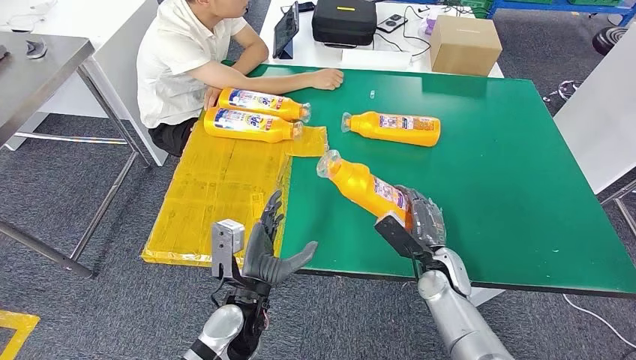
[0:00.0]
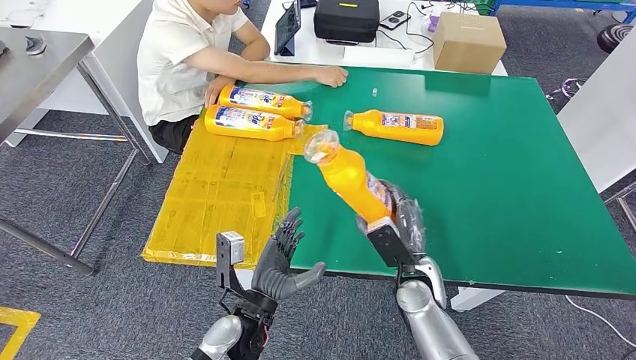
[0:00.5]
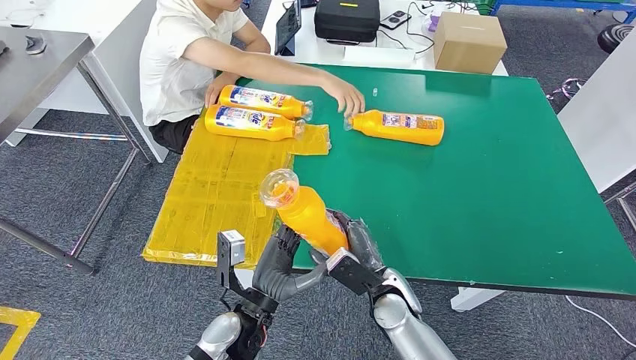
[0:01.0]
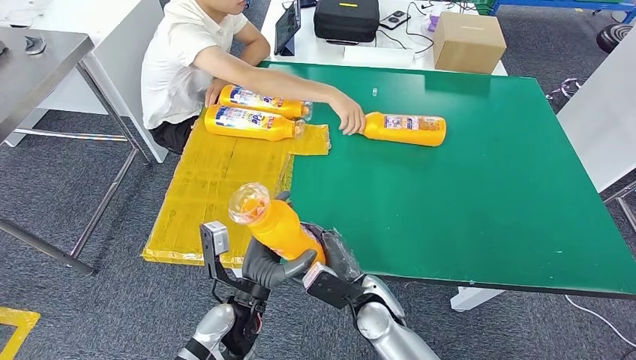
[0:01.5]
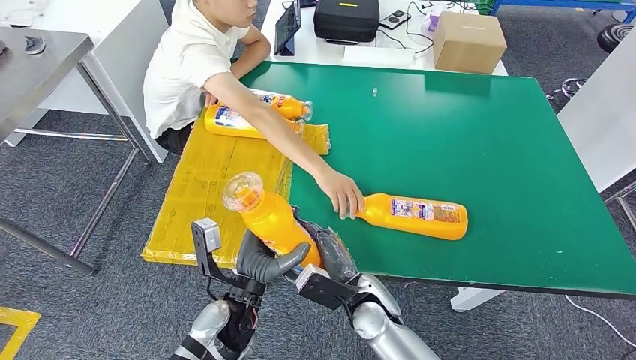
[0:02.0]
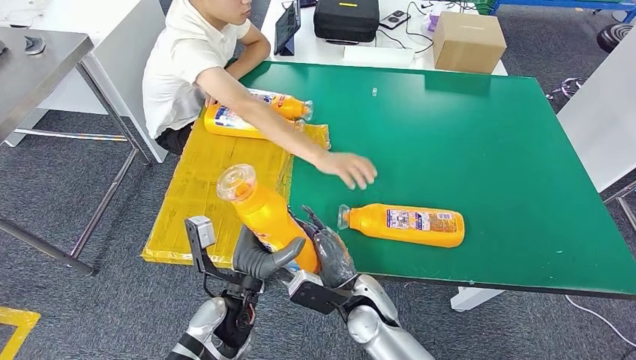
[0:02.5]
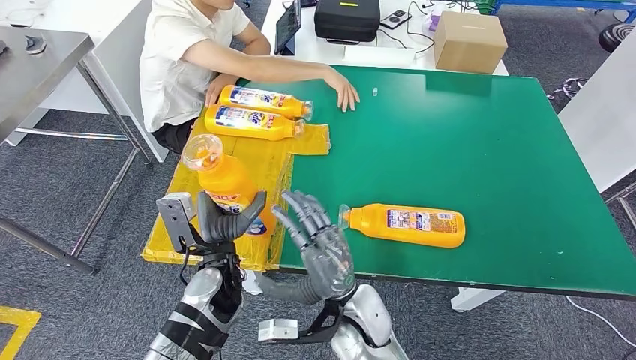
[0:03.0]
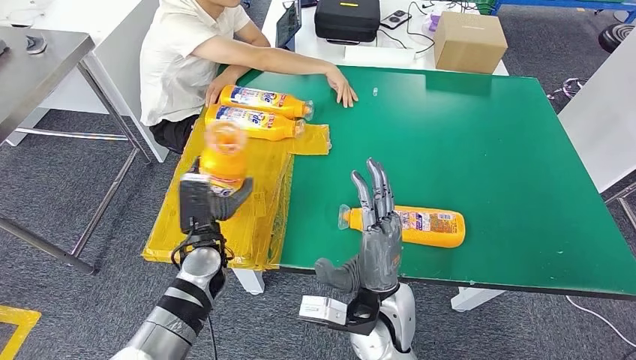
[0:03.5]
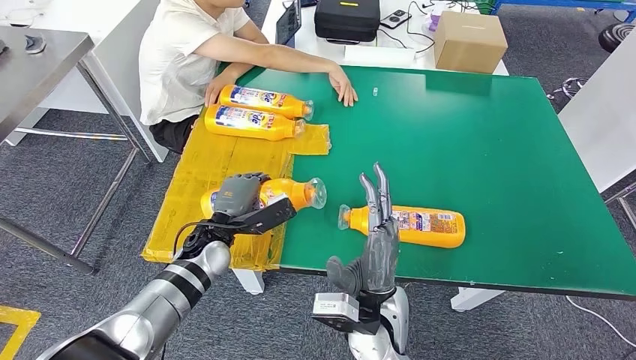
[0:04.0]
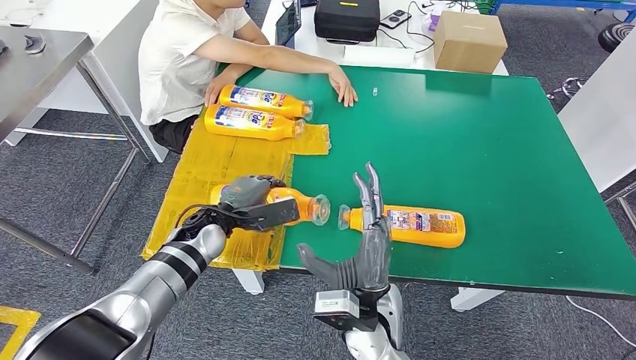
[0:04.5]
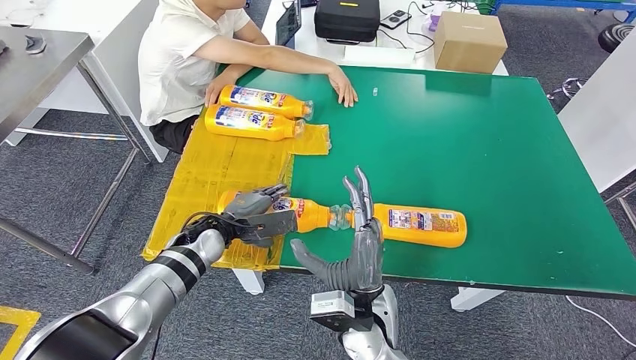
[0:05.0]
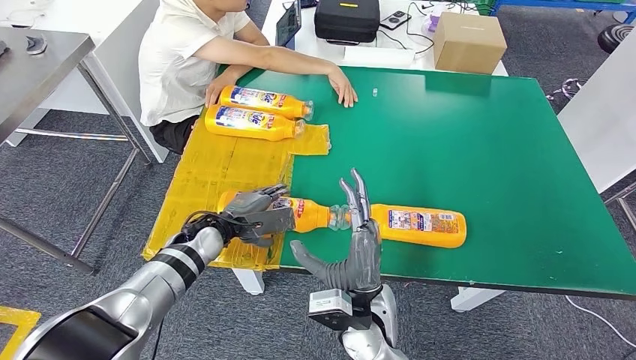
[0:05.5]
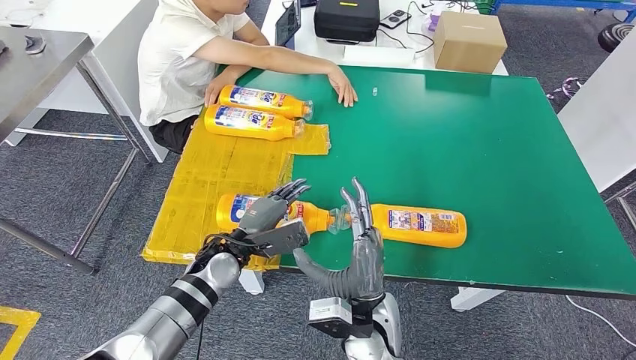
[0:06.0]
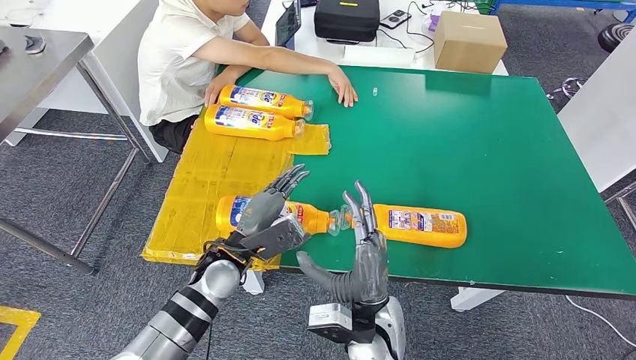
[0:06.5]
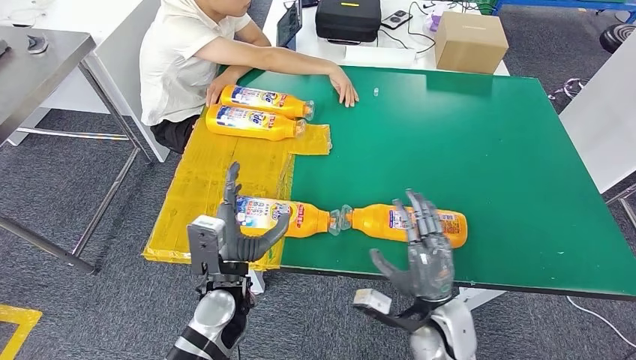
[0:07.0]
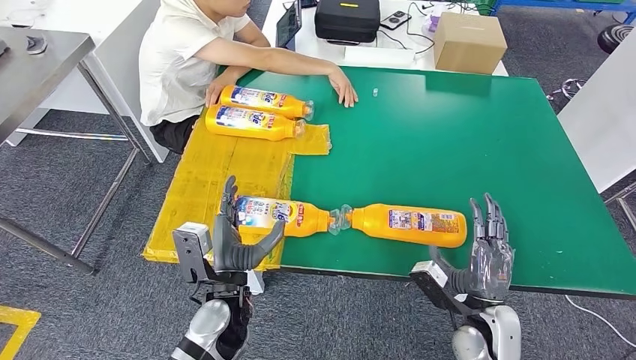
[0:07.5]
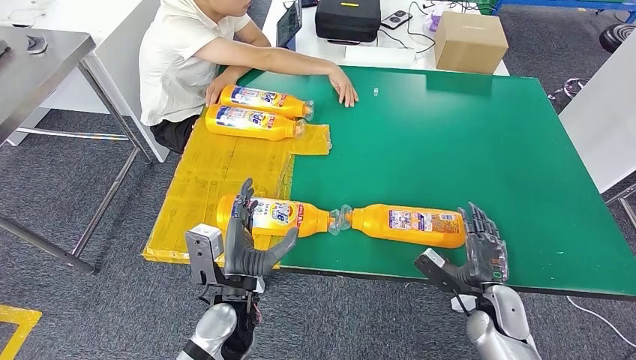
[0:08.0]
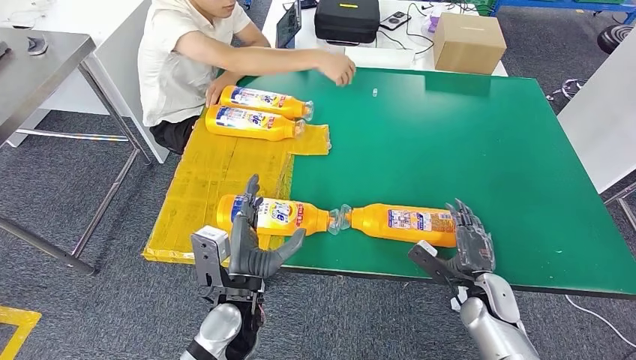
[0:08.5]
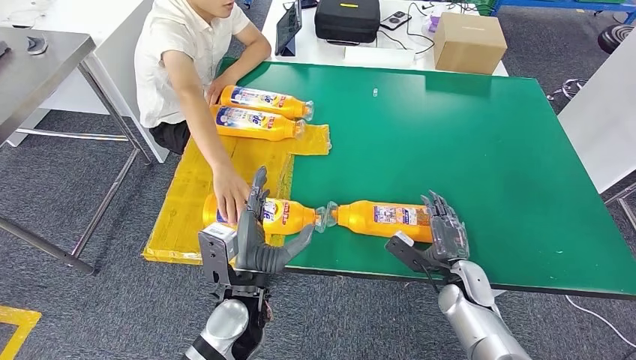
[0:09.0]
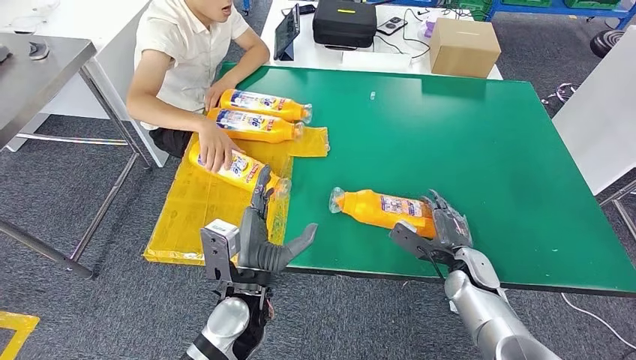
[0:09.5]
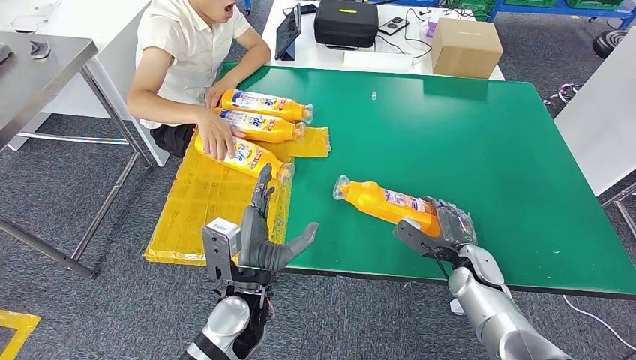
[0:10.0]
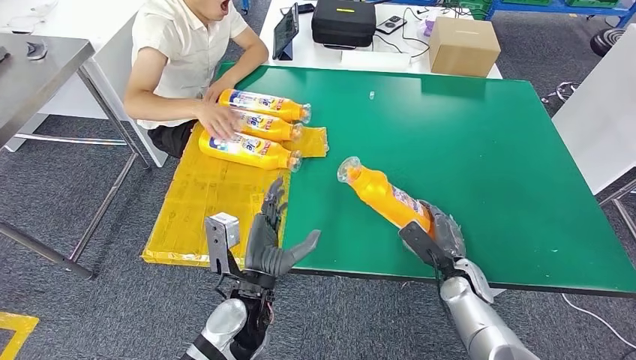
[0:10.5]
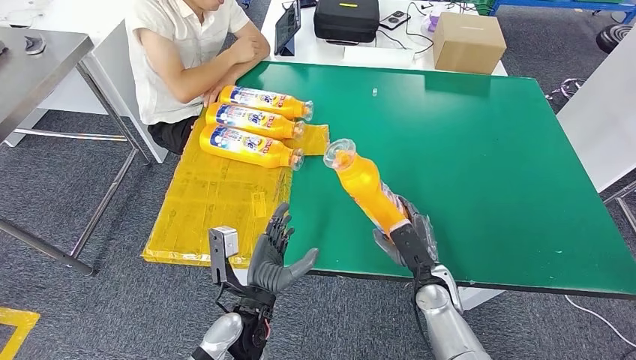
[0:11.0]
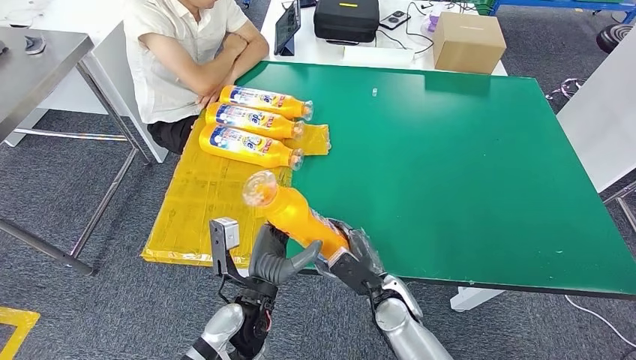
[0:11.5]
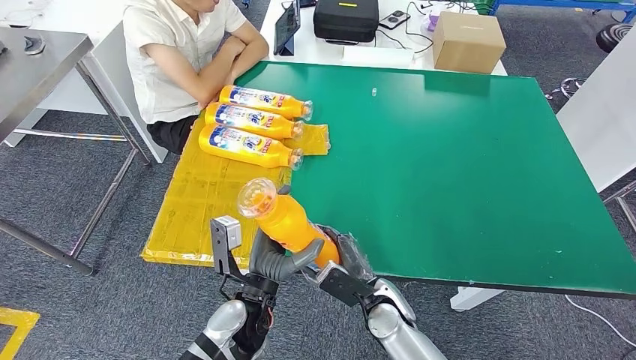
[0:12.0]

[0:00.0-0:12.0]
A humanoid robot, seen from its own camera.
Step, 0:00.5 to 0:05.5: Flip the fast-moving consumer goods bottle to the front side.
Step, 0:06.0 to 0:11.0: Pick up the fast-moving consumer goods bottle from the table.
0:06.0 to 0:08.0: The left hand heads backward, covering some 10 cm. The right hand moves to the right, approximately 25 cm.

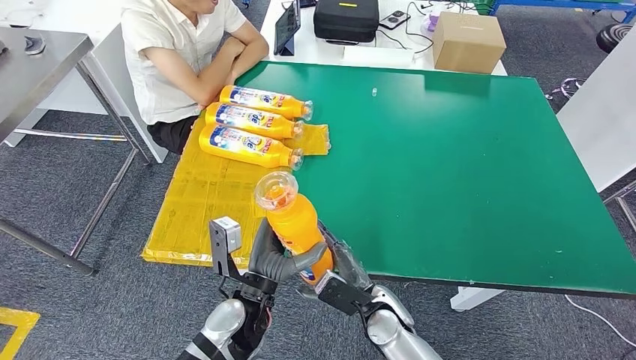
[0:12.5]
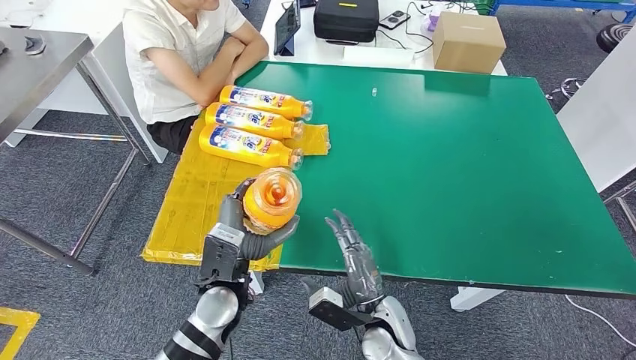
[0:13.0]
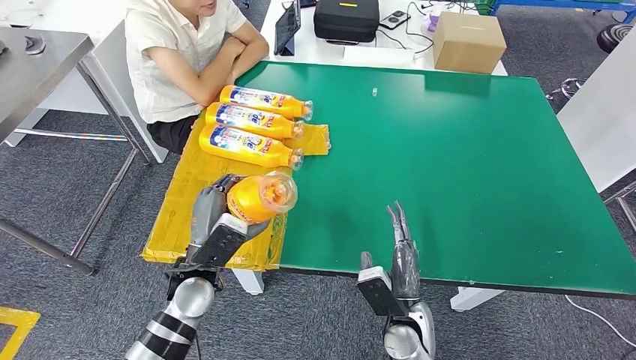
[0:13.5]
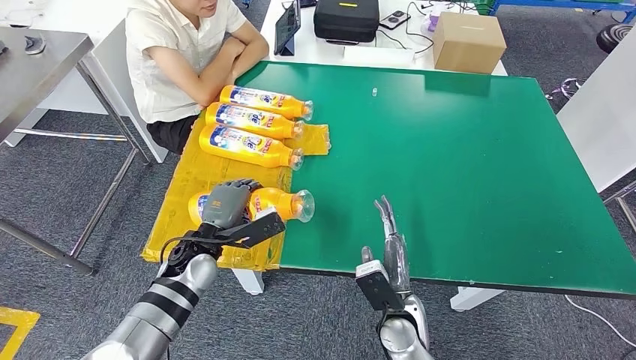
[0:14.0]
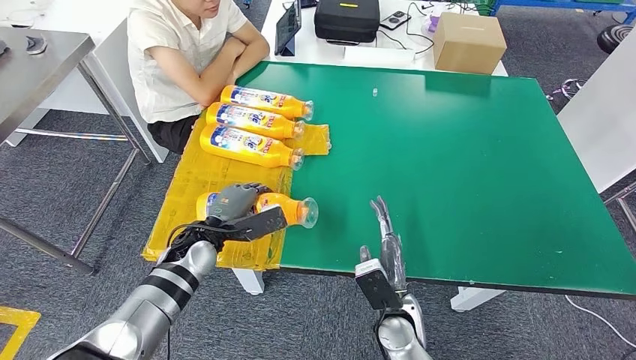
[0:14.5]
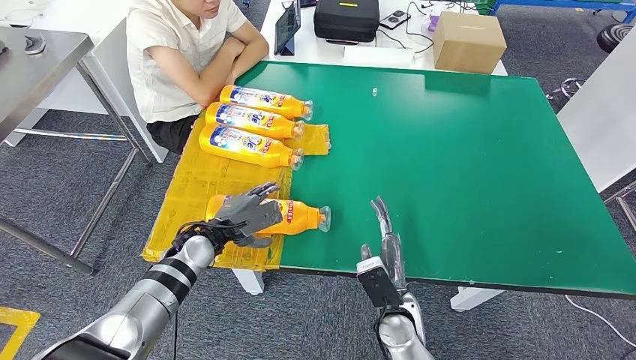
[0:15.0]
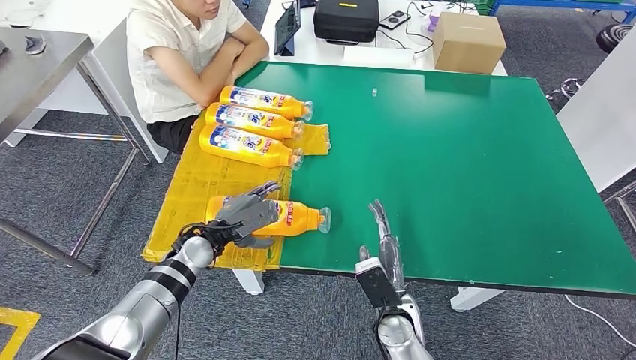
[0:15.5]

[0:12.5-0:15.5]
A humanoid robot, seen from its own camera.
Step, 0:12.5 to 0:15.5: Flip the fast-moving consumer goods bottle to the front side.
0:12.5 to 0:14.0: The left hand heads to the left and forward, covering approximately 15 cm.

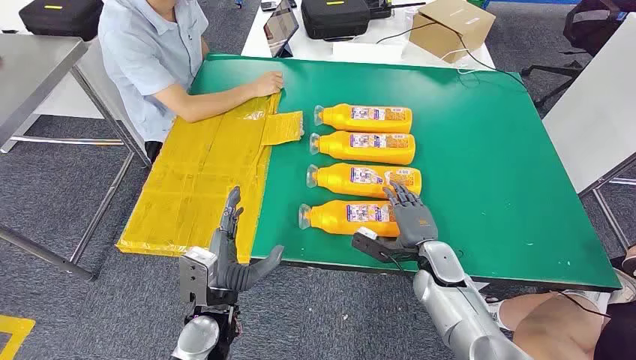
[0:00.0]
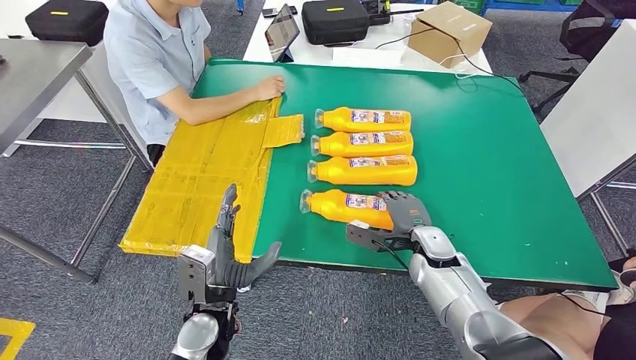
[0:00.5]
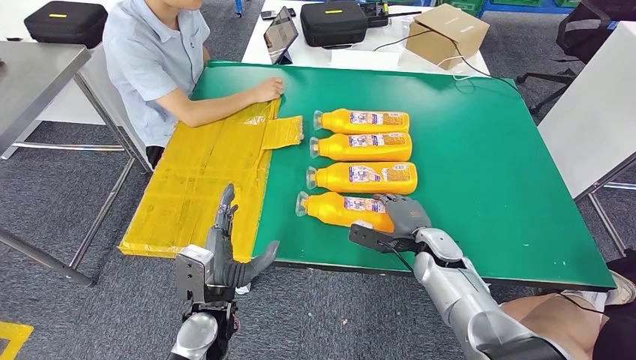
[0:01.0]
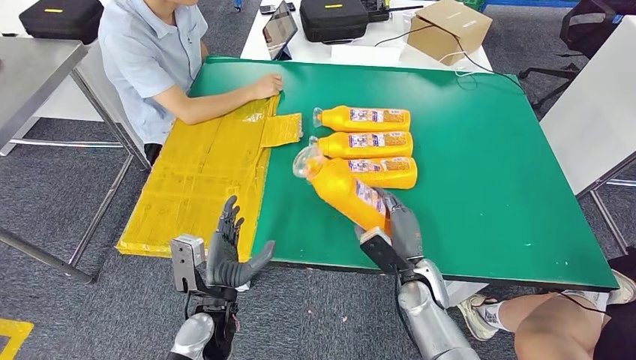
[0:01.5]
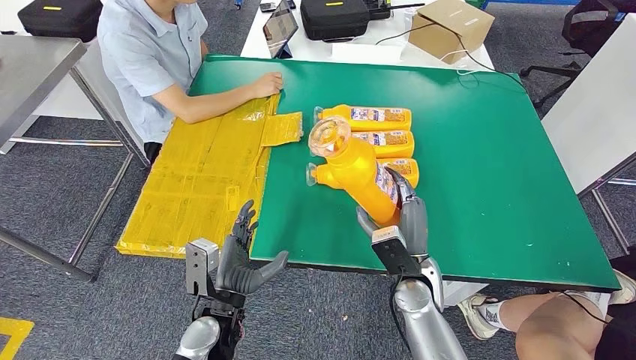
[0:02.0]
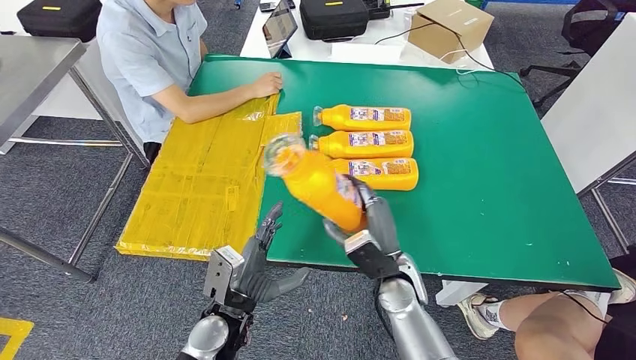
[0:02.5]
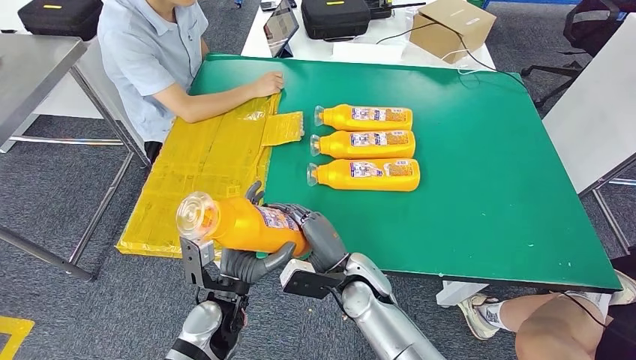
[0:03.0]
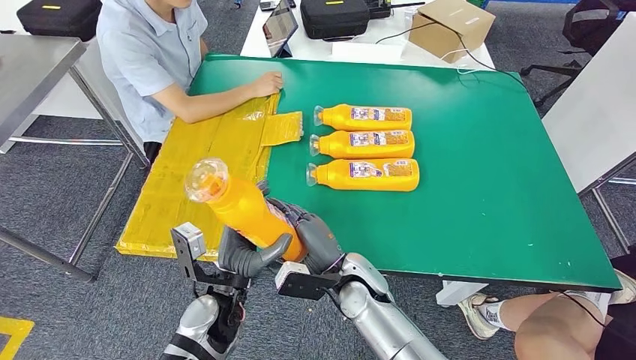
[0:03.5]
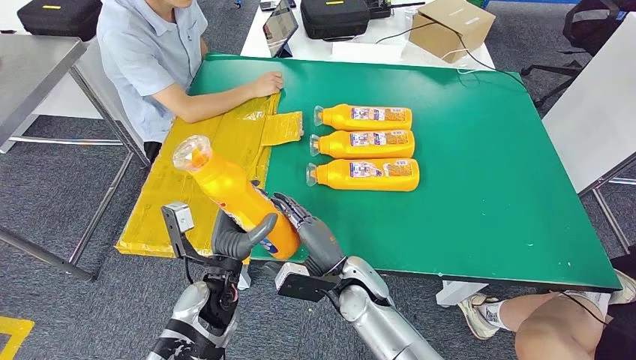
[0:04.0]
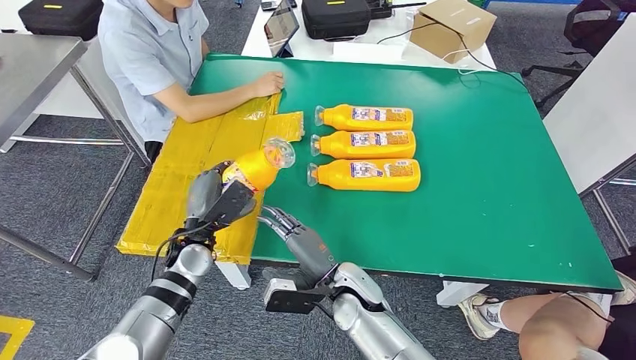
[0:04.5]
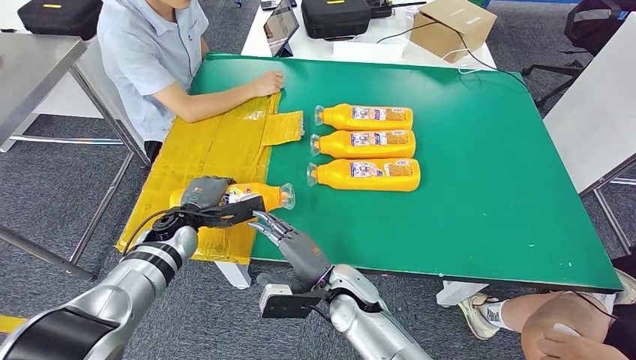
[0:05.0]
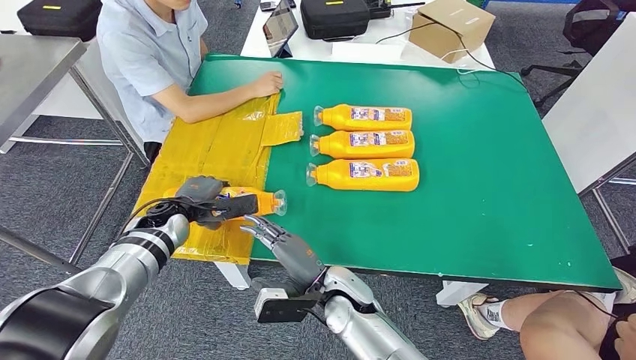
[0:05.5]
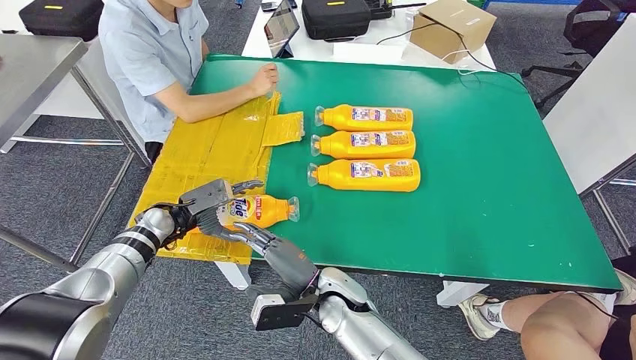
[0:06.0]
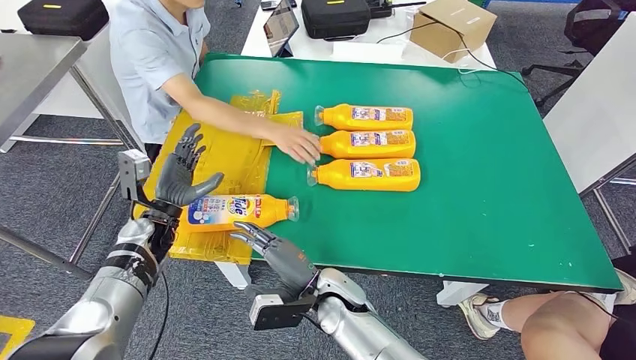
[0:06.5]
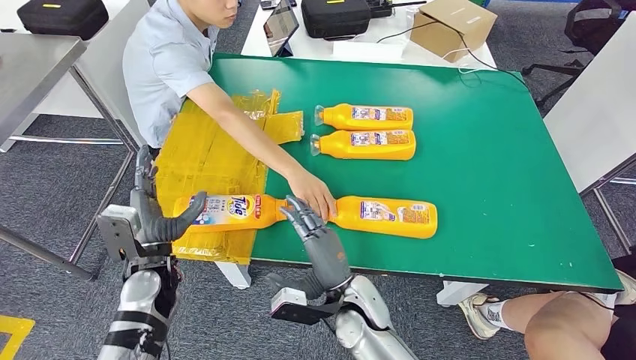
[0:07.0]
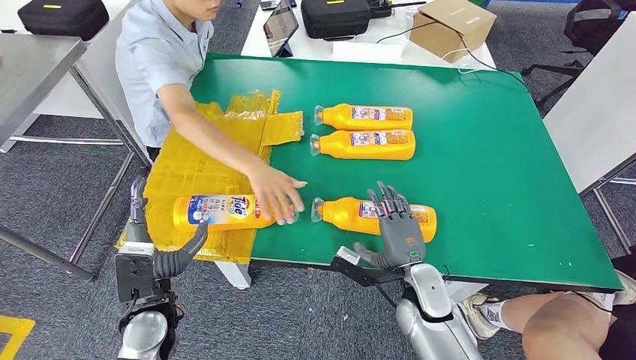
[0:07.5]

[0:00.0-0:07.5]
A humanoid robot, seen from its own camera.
Step, 0:00.0 to 0:02.5: Take the fast-moving consumer goods bottle from the table.
Step, 0:03.0 to 0:07.0: Flip the fast-moving consumer goods bottle to the front side.
0:02.0 to 0:04.0: The left hand shifts by roughly 5 cm; the right hand is displaced to the left by approximately 10 cm.
0:04.0 to 0:05.5: The left hand moves forward and to the left, approximately 20 cm.
